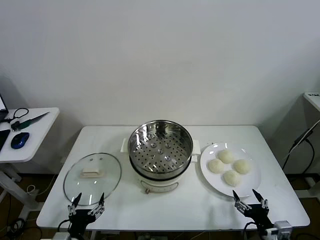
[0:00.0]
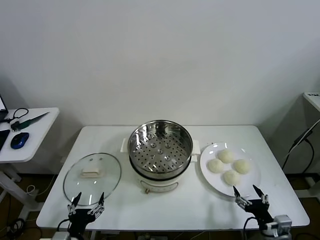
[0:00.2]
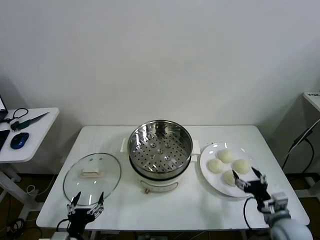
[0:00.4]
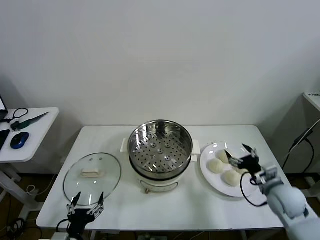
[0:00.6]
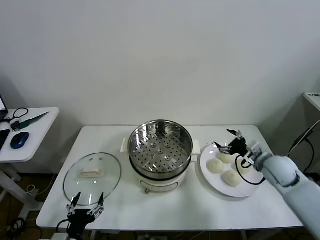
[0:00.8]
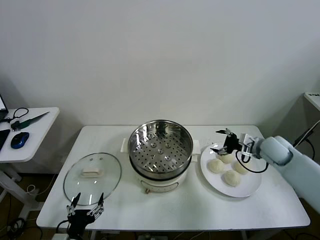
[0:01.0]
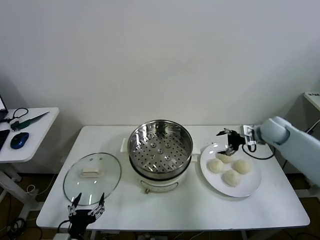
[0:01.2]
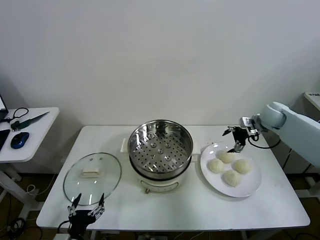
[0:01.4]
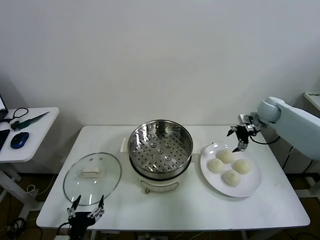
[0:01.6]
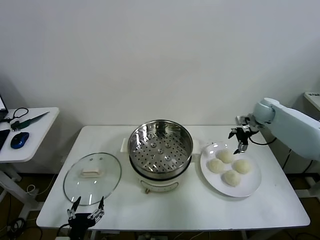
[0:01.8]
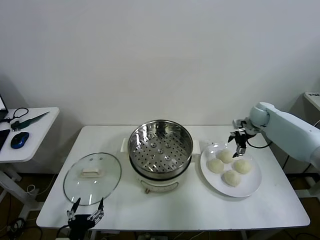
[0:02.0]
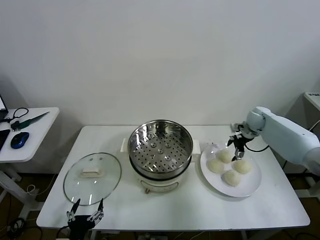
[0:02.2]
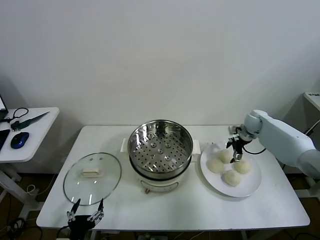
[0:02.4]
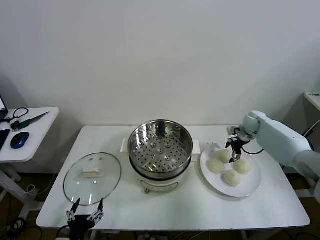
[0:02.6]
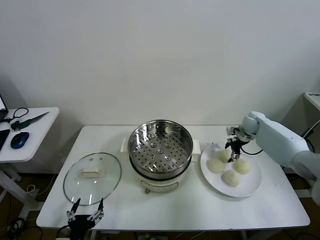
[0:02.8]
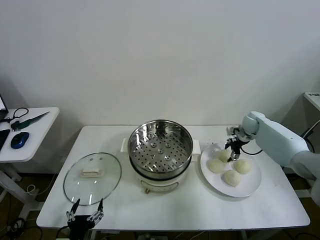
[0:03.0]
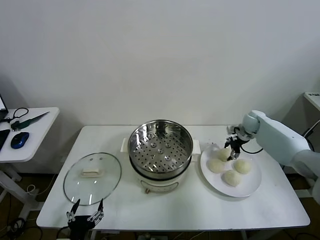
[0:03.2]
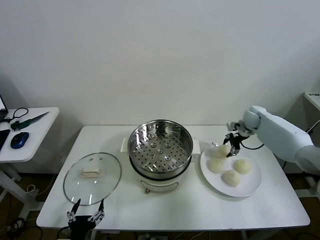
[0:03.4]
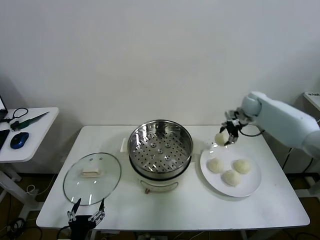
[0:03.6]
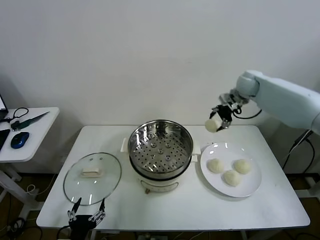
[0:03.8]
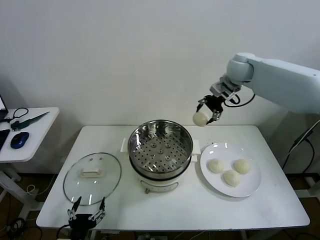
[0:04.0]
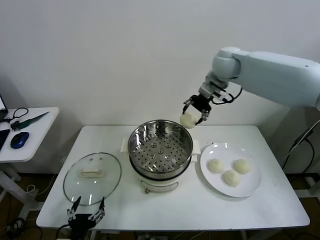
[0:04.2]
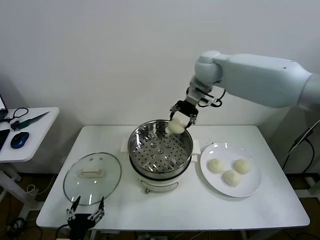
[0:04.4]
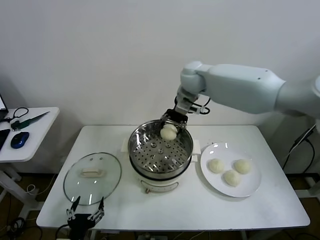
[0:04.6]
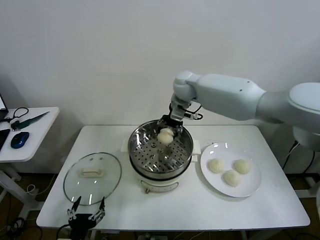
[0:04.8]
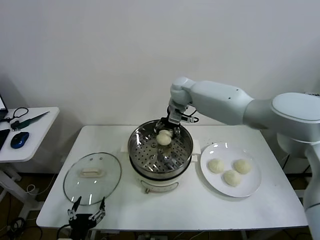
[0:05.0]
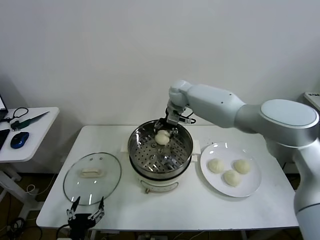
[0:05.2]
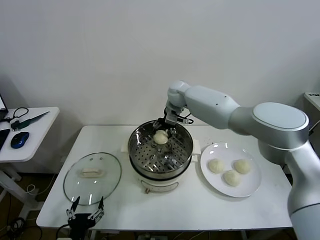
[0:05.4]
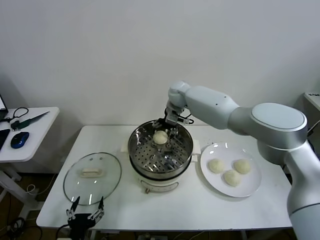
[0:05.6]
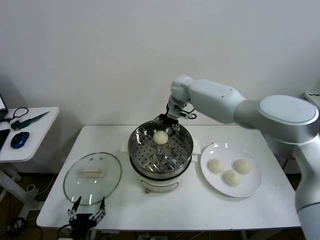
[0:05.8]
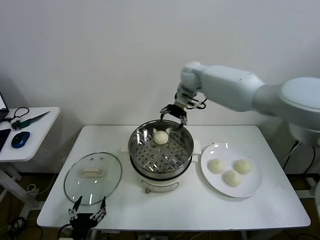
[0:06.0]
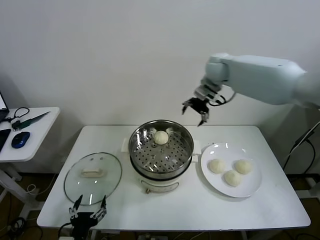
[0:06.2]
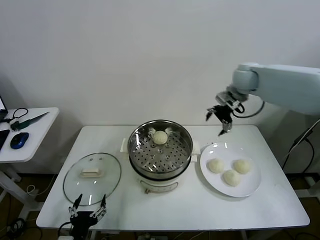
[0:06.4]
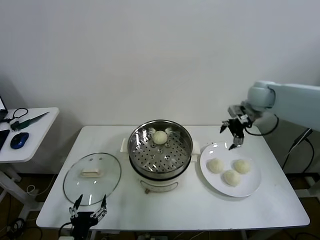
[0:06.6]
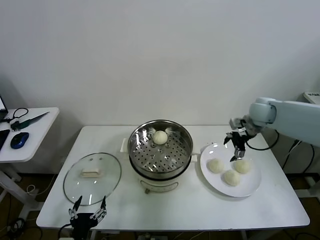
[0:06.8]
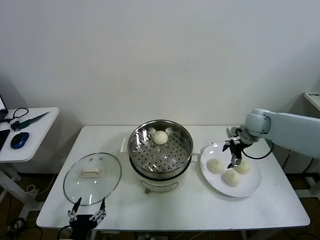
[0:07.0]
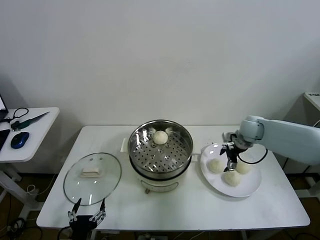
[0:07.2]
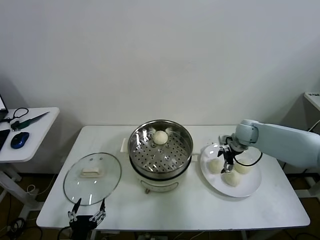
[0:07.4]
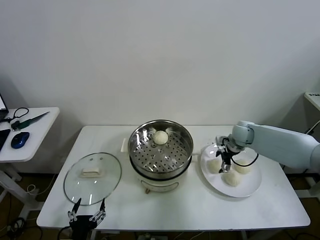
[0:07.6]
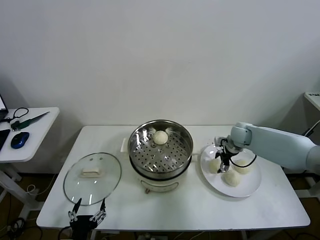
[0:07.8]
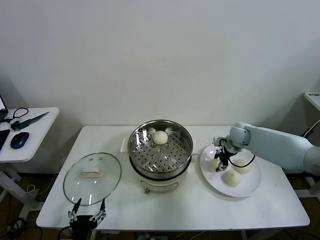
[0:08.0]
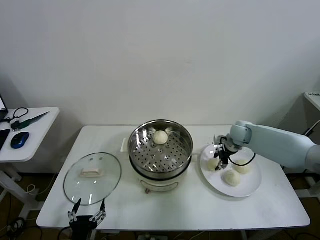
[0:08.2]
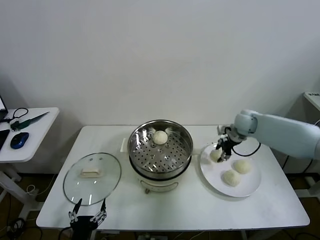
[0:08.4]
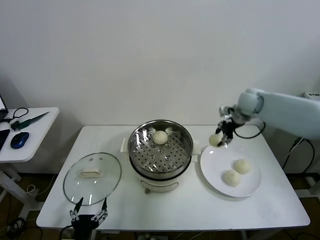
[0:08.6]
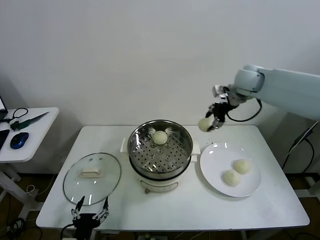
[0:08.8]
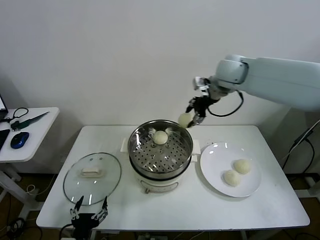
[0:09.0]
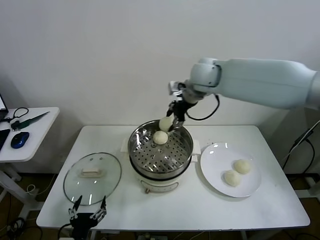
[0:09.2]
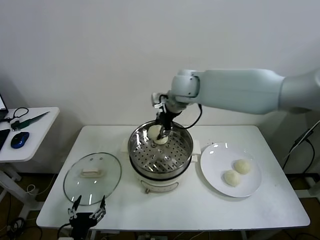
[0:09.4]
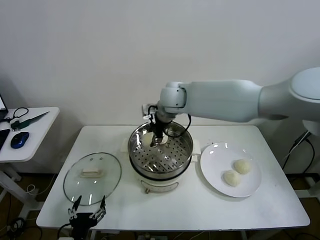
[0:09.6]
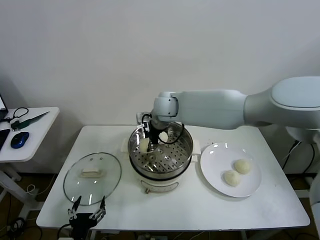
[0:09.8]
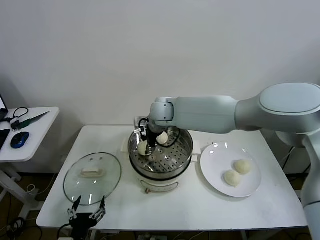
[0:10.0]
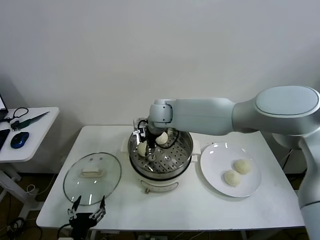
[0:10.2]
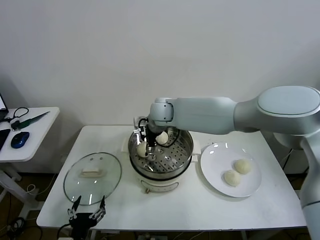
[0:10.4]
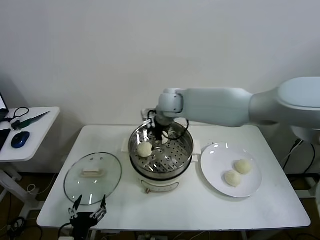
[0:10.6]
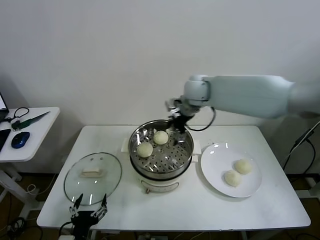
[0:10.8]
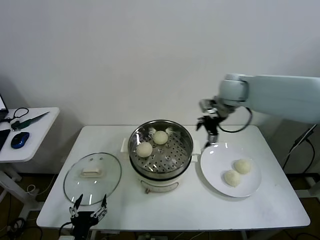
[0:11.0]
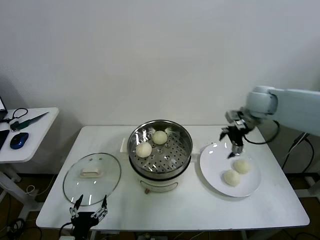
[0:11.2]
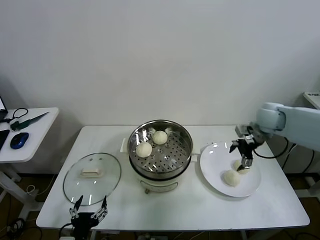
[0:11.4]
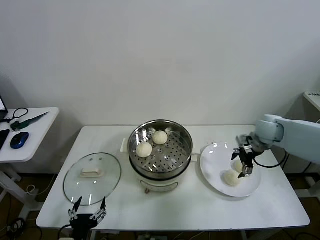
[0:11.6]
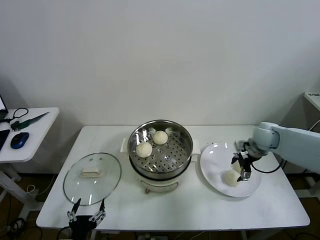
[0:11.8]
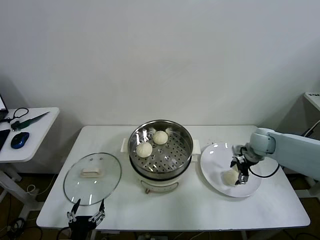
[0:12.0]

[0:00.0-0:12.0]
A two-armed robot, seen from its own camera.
Task of the whole recording: take steamed baozi put them in steamer then cover it.
Step, 0:00.0 to 0:02.8: Grasp the baozi in the plate with right gripper.
Step, 0:03.2 to 0:05.6: Place the baozi on the steamer with right gripper.
Step, 0:05.8 to 0:08.0: Grasp the baozi in the plate with right gripper.
Step, 0:08.2 to 0:10.4: Place the baozi on the steamer with right gripper.
0:01.6 to 0:03.0: The right gripper shifts roughly 5 cm downward, and closes its fingers.
0:03.0 to 0:04.4: The right gripper goes roughly 35 cm to the left and upward.
0:04.4 to 0:06.0: The right gripper moves to the right, roughly 10 cm, and opens.
0:06.0 to 0:07.6: The right gripper shifts roughly 30 cm downward and to the right.
0:07.6 to 0:09.0: The right gripper goes some 30 cm upward and to the left, and closes up.
0:09.0 to 0:10.4: The right gripper is displaced to the left and downward by approximately 15 cm, and opens.
0:10.4 to 0:12.0: The right gripper is displaced to the right and downward by about 40 cm.

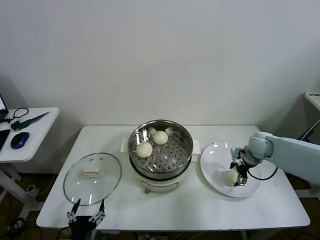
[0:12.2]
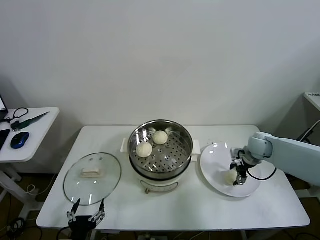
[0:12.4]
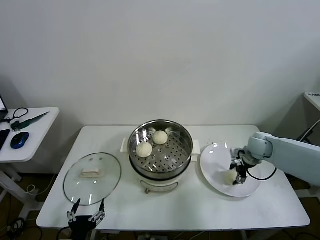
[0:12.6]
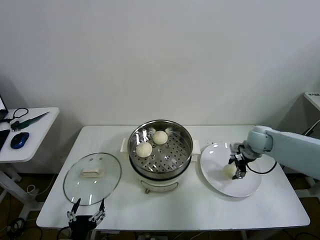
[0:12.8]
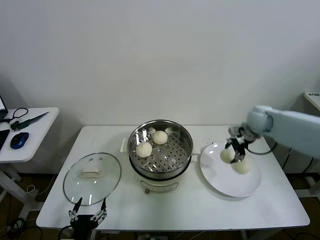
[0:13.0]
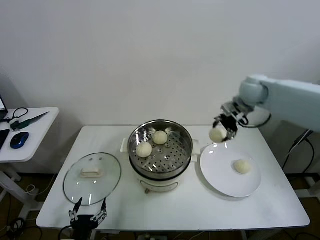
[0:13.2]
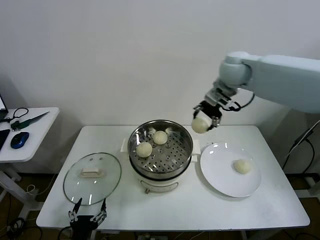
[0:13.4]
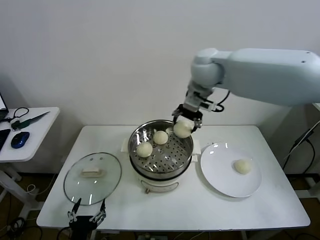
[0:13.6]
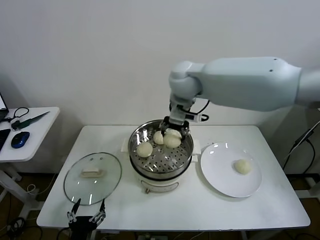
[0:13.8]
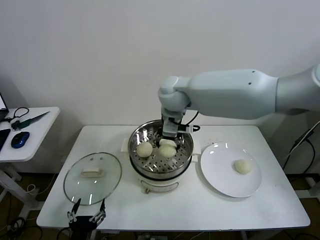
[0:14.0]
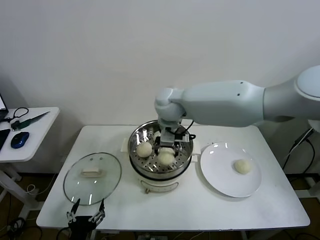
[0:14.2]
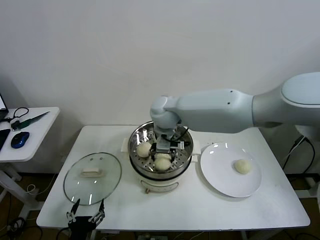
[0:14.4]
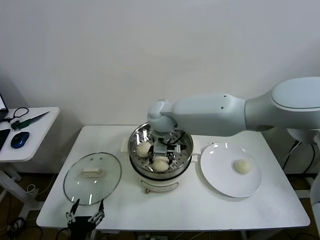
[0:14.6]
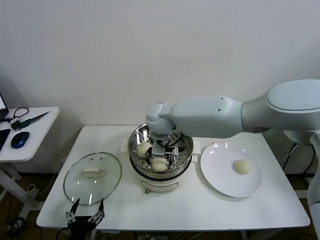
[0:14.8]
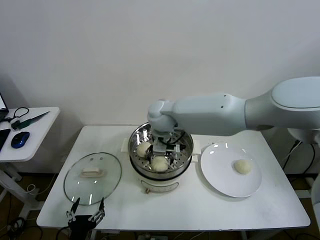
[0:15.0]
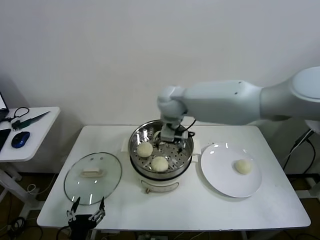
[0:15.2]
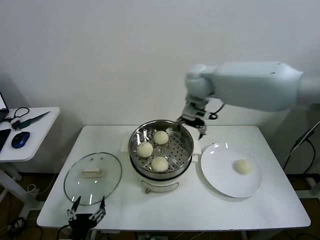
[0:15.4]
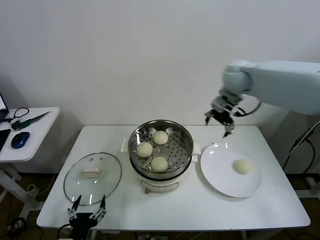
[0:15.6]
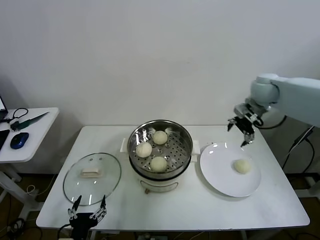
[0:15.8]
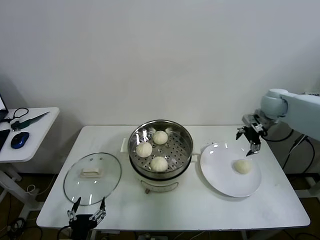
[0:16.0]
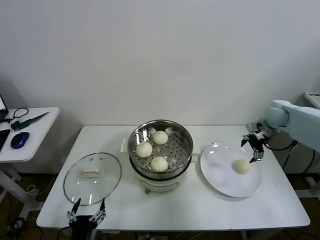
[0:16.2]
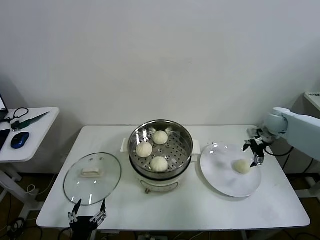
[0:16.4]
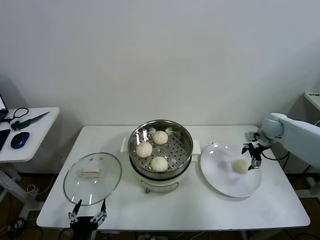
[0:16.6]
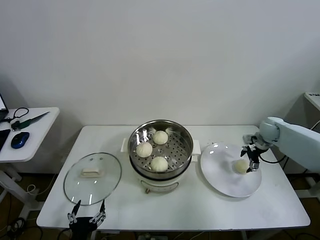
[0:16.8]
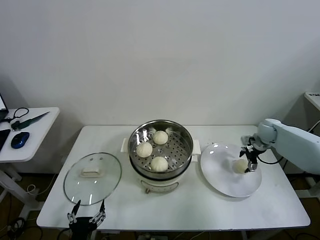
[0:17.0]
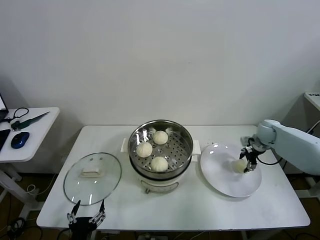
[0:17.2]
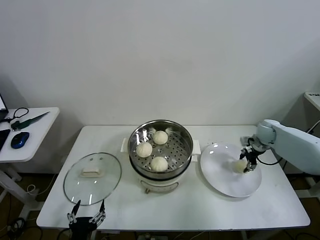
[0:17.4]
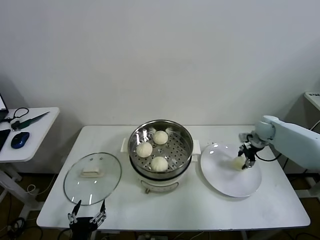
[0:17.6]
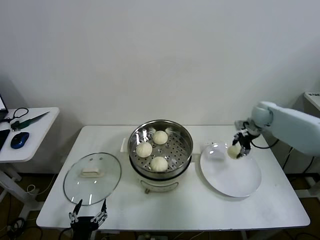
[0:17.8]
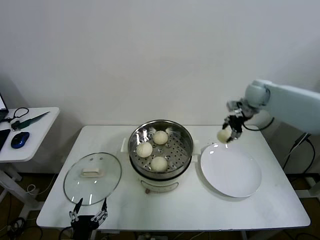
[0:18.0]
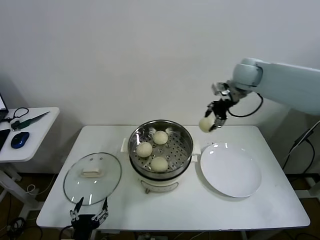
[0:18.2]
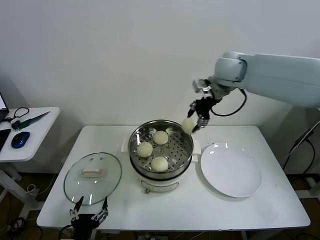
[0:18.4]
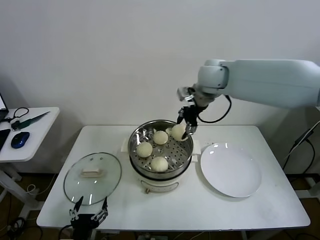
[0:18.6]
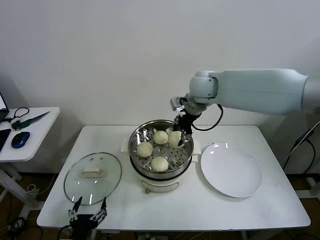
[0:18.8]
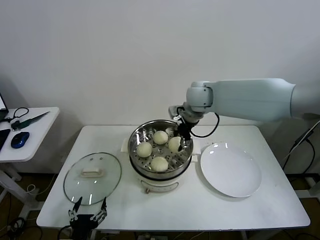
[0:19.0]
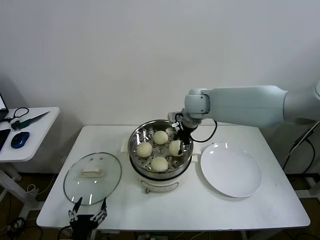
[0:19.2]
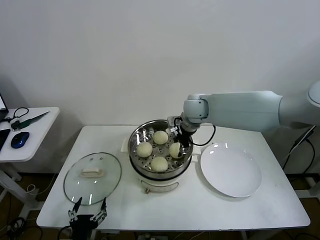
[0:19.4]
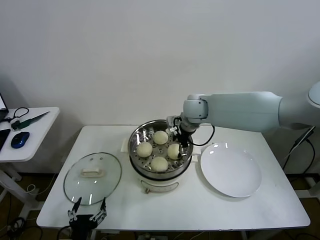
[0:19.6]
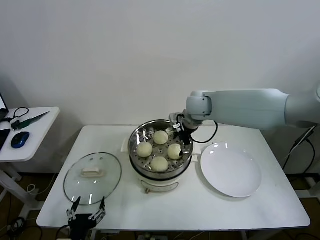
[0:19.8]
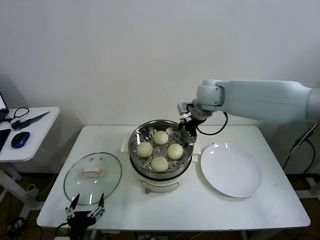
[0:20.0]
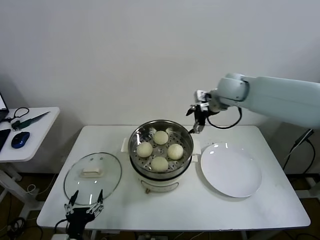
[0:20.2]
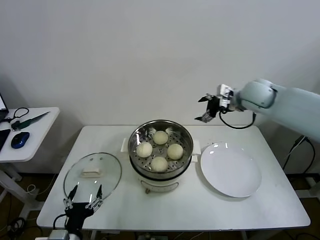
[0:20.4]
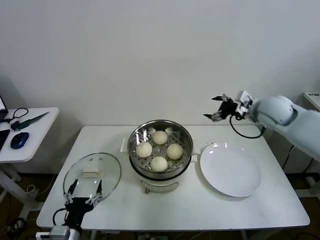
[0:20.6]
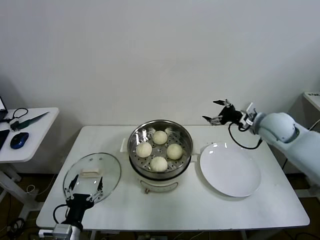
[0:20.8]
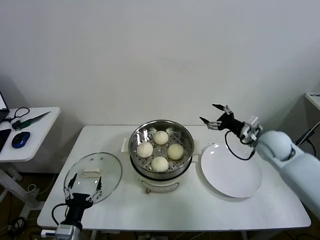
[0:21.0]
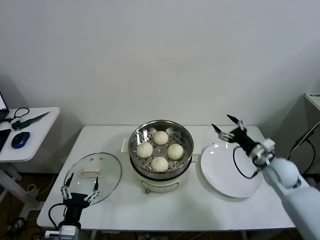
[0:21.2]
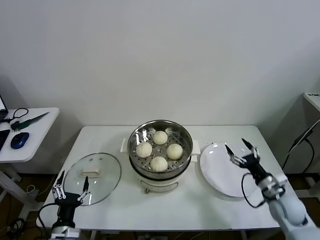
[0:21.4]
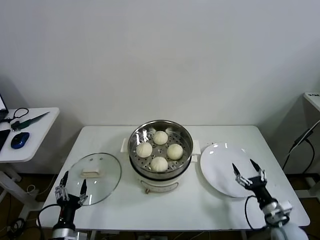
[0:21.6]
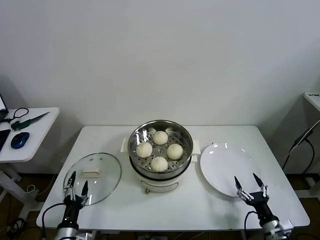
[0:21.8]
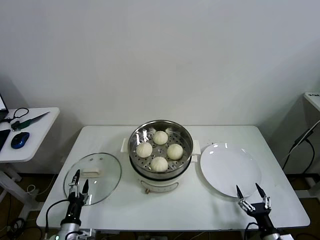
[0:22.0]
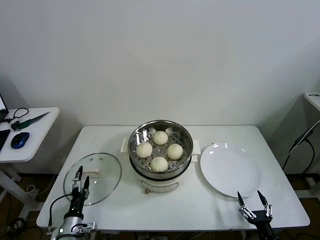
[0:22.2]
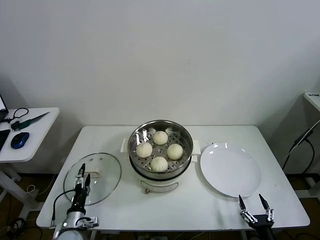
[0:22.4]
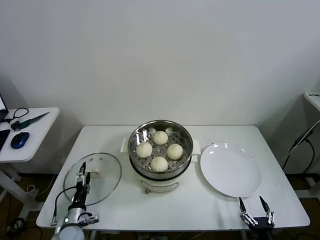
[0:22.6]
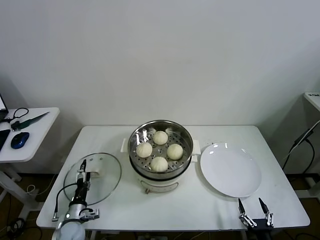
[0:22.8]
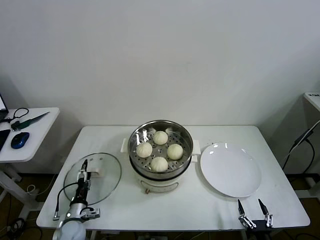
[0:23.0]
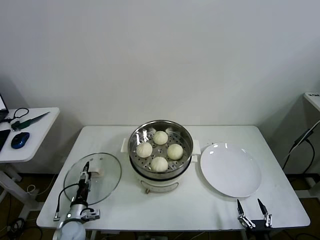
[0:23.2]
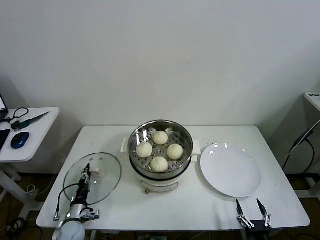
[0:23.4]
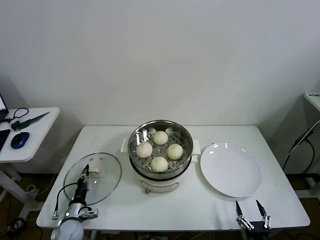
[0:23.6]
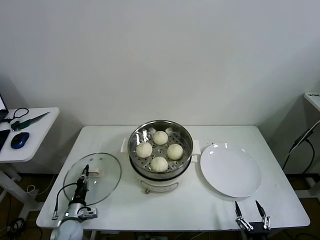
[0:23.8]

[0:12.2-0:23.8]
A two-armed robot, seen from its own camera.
Task of the whole recording: take steamed baozi put them in steamer then cover it.
Step, 0:12.6 to 0:14.8: Place the baozi on the steamer with right gripper.
Step, 0:15.0 to 0:17.2: Grasp the baozi in the plate with right gripper.
Step, 0:17.4 to 0:19.6: Place the baozi on the steamer with right gripper.
Step, 0:19.8 to 0:23.6: Grasp the pot lid with left gripper.
0:12.2 to 0:13.6: The right gripper heads upward and to the left, covering some 40 cm, and closes its fingers.
0:13.6 to 0:15.0: The right gripper travels downward and to the left by some 15 cm, and opens its fingers.
0:15.0 to 0:16.6: The right gripper travels to the right by roughly 40 cm.
0:16.6 to 0:18.0: The right gripper shifts approximately 20 cm upward and to the left, and closes.
0:18.0 to 0:19.4: The right gripper travels to the left by about 20 cm.
0:19.4 to 0:21.0: The left gripper shifts by roughly 5 cm. The right gripper heads to the right and backward, covering some 25 cm, and opens.
0:21.0 to 0:22.4: The left gripper is displaced downward and forward by about 15 cm. The right gripper moves backward and downward, roughly 40 cm.
0:22.4 to 0:23.8: The left gripper changes place by roughly 5 cm, and closes.
